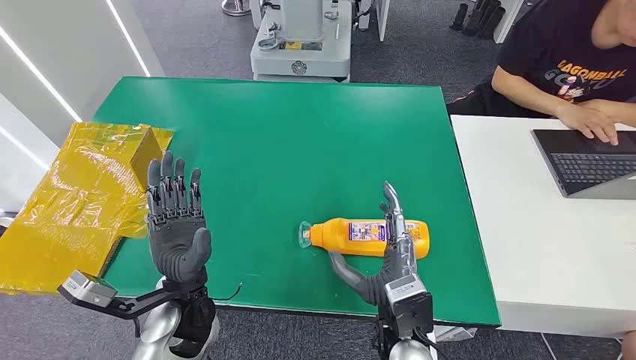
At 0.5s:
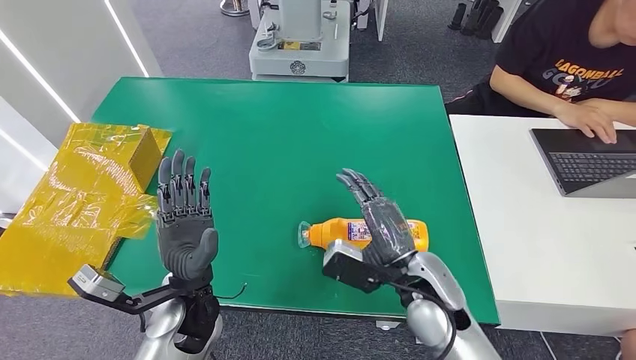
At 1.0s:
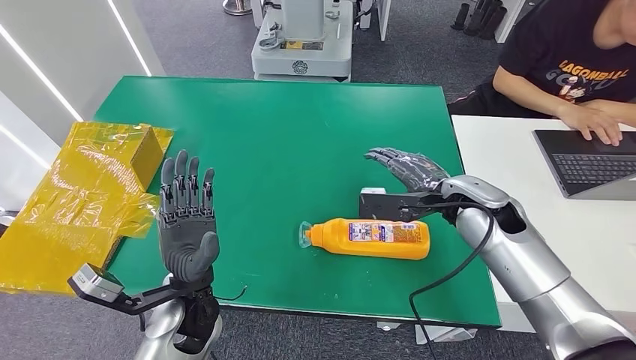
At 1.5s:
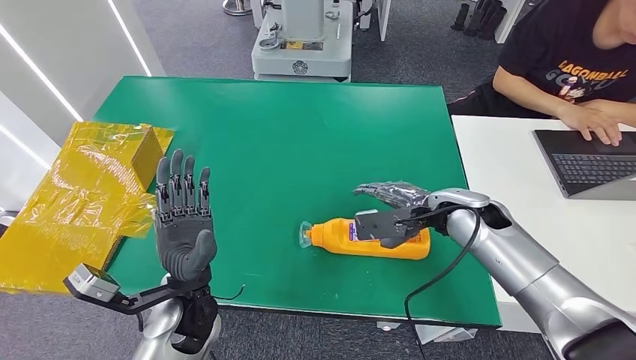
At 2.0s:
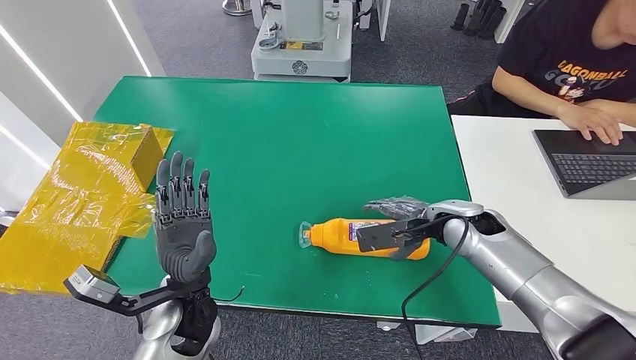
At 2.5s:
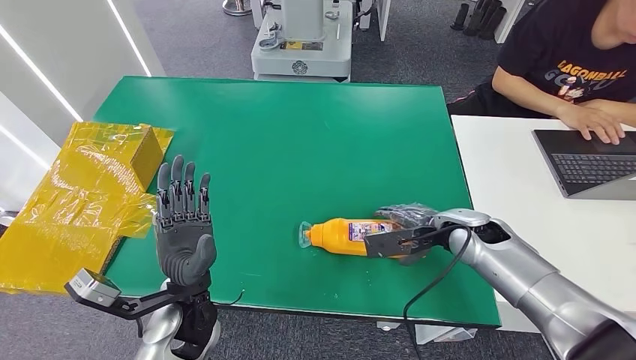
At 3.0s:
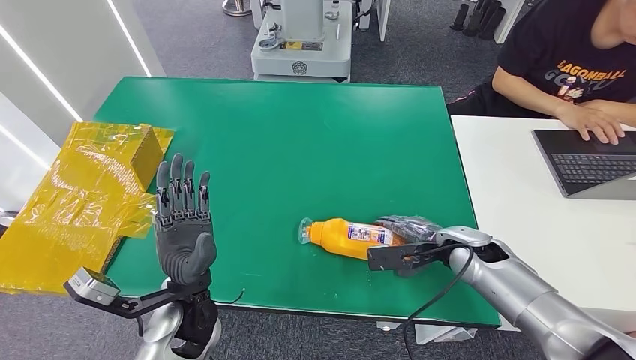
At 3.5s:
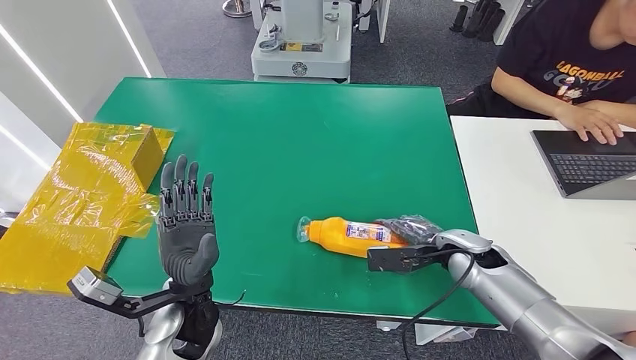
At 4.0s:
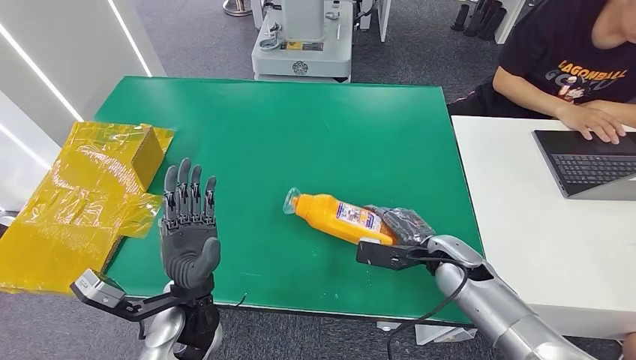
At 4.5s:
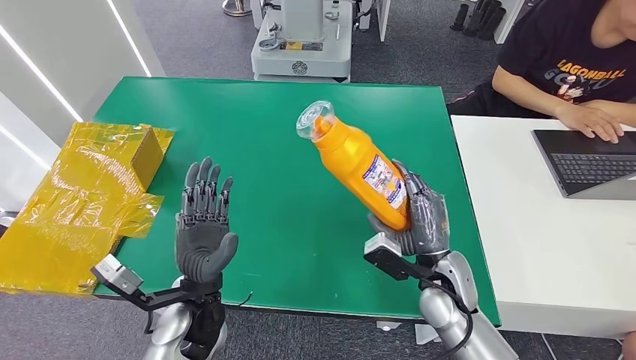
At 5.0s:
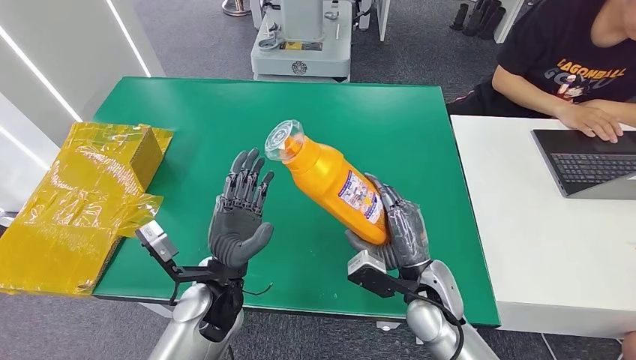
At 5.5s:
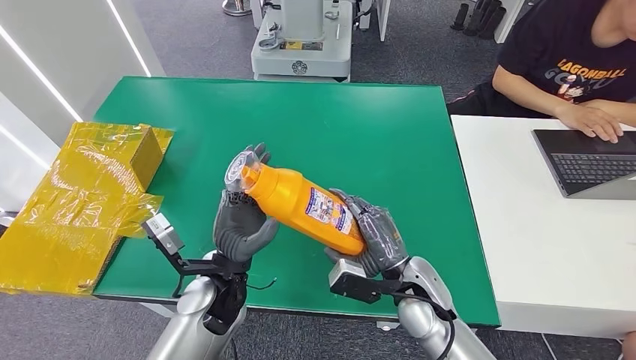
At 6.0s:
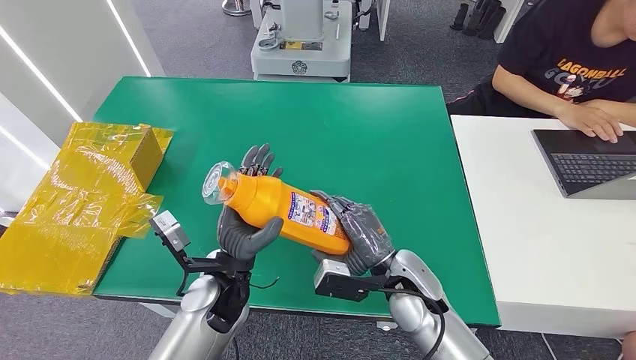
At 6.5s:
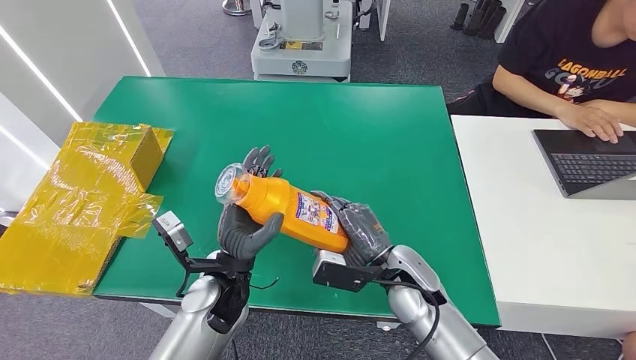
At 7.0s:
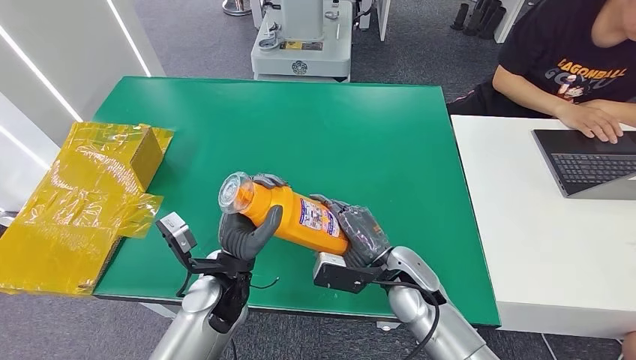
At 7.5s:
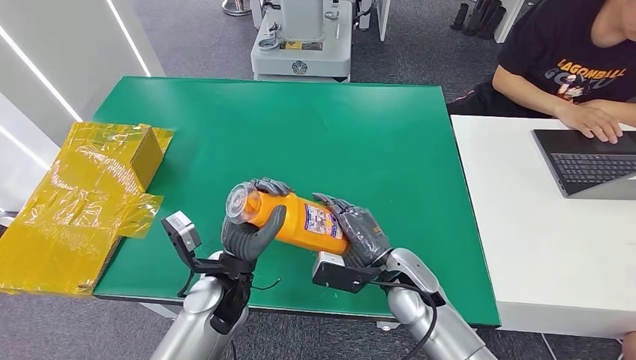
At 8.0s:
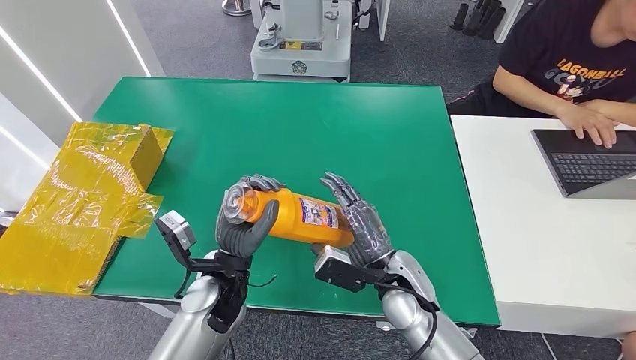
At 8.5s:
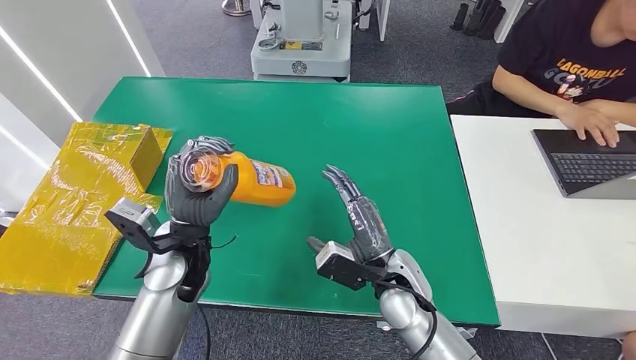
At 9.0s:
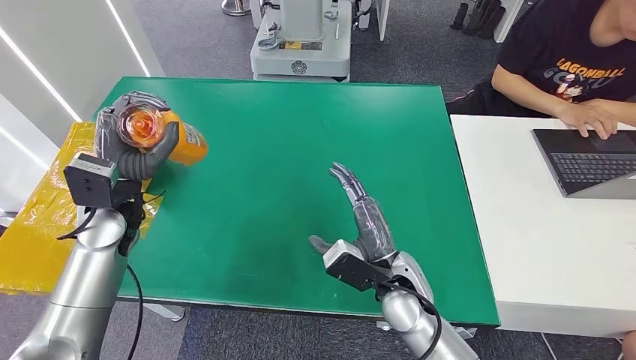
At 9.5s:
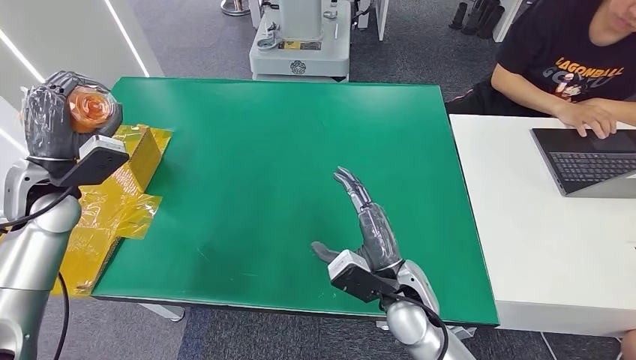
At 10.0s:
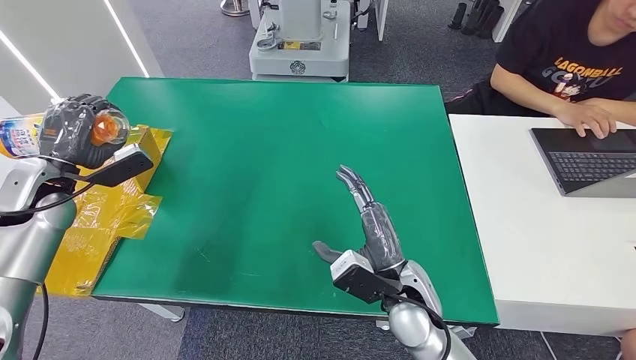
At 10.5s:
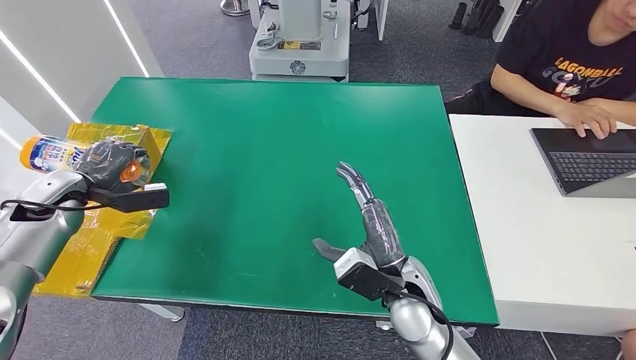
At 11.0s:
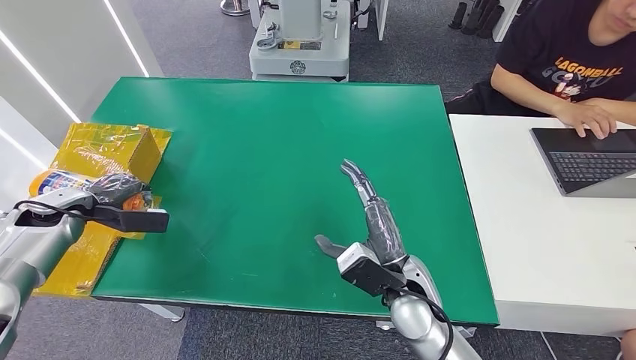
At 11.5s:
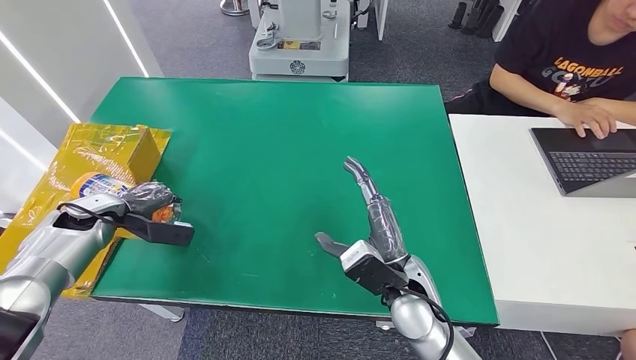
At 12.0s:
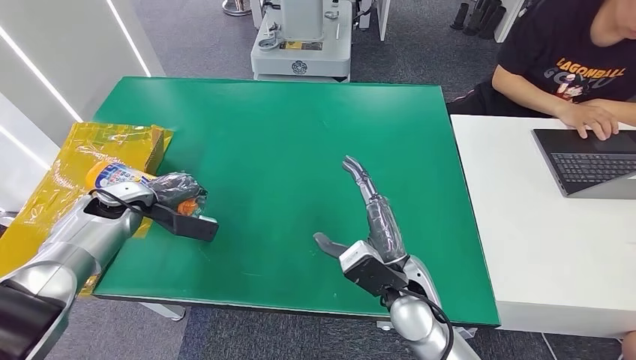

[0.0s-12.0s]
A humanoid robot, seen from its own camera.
Step, 0.0s to 4.5s: Pick up the bottle from the table.
2.0s to 4.0s: The right hand moves downward and backward, approximately 10 cm.
4.0s to 6.0s: The left hand moves roughly 5 cm. The right hand heads to the left and backward, covering about 15 cm.
6.0s to 8.0s: The hands make only small movements.
10.0s to 12.0s: The left hand is displaced downward by some 10 cm.

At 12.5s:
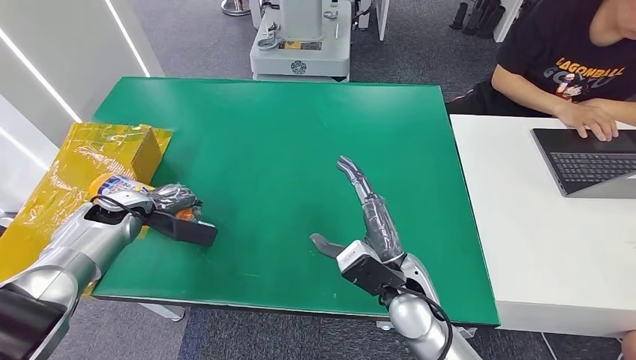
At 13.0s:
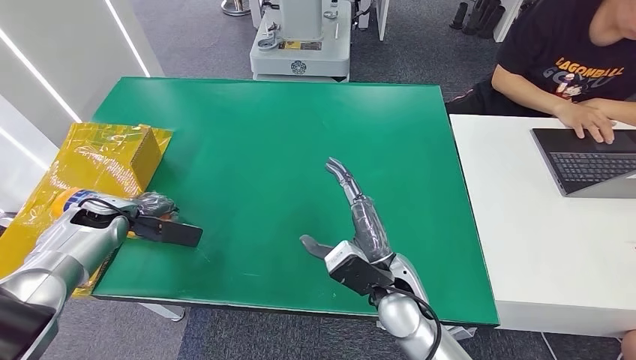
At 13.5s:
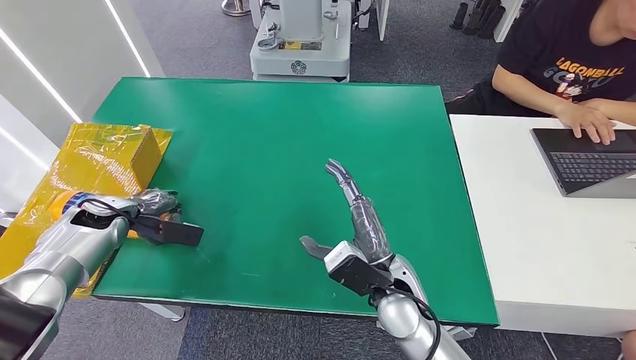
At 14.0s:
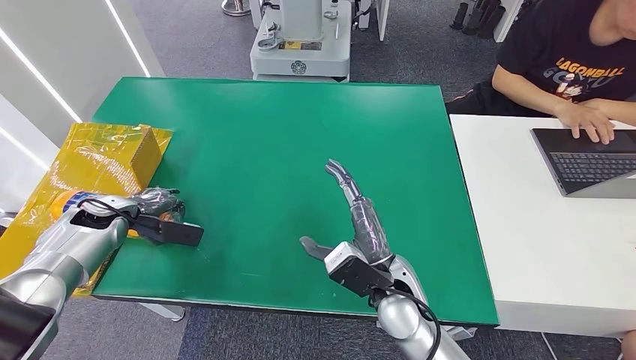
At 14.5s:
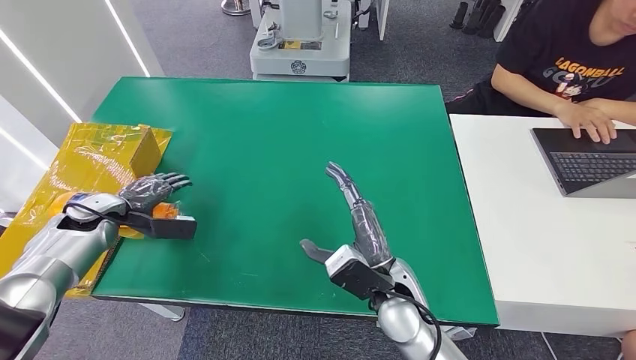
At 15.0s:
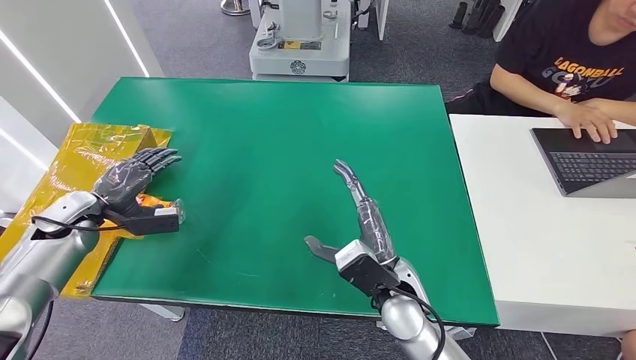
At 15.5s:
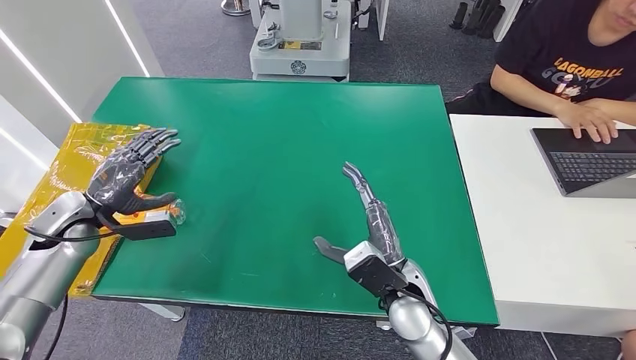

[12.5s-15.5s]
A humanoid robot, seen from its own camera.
Step, 12.5s to 15.5s: Turn the bottle to the front side.
12.5s to 14.0s: The hands make only small movements.
